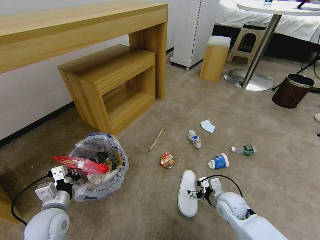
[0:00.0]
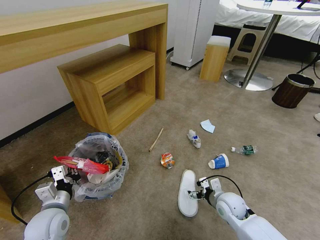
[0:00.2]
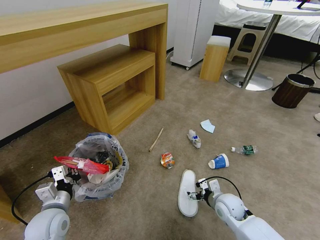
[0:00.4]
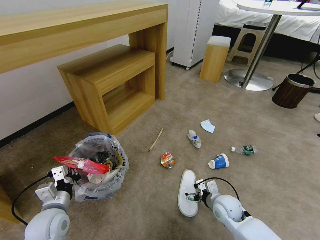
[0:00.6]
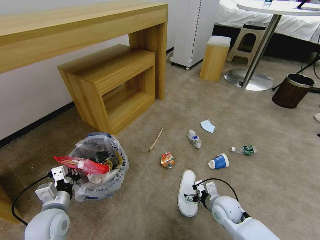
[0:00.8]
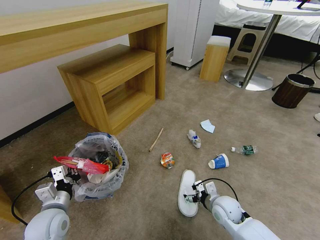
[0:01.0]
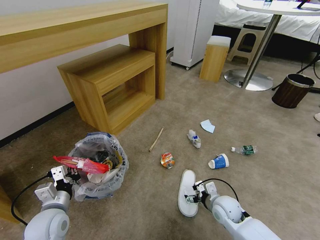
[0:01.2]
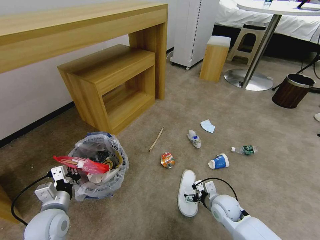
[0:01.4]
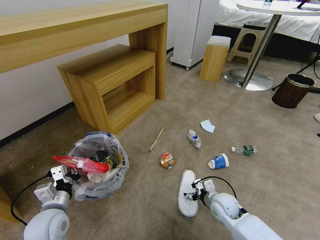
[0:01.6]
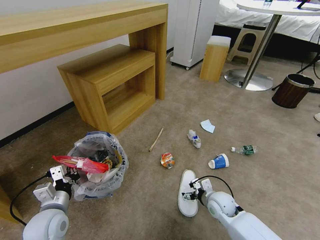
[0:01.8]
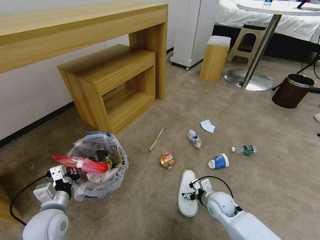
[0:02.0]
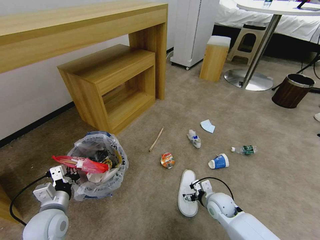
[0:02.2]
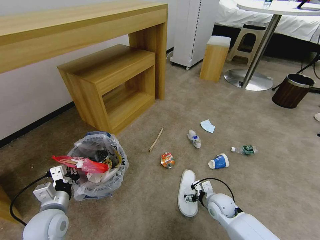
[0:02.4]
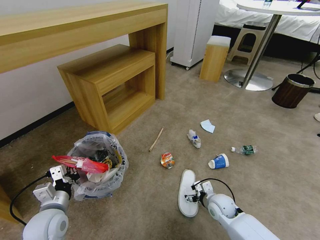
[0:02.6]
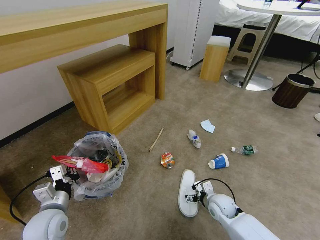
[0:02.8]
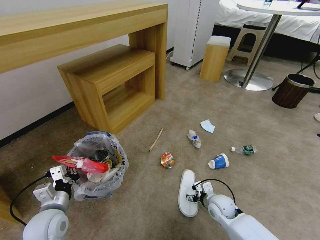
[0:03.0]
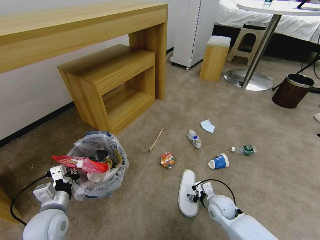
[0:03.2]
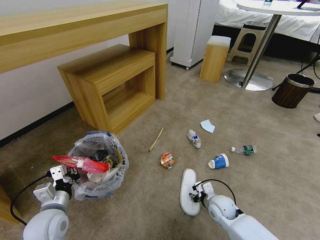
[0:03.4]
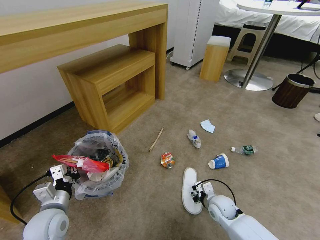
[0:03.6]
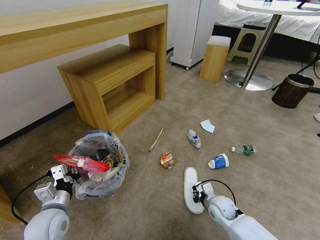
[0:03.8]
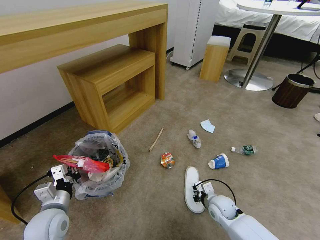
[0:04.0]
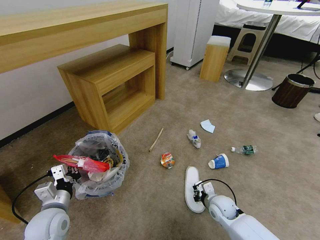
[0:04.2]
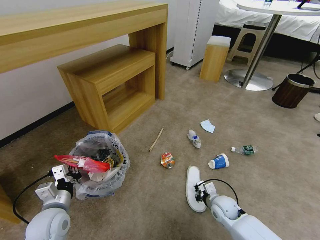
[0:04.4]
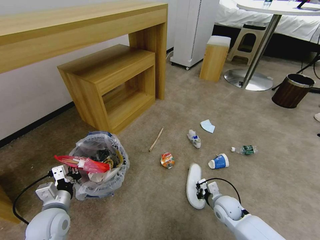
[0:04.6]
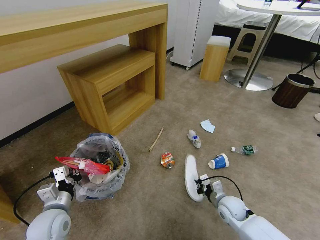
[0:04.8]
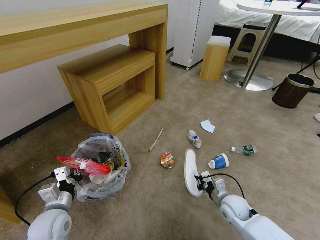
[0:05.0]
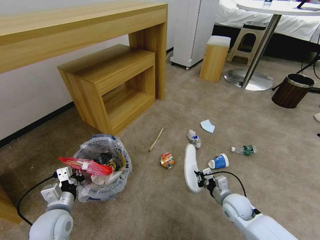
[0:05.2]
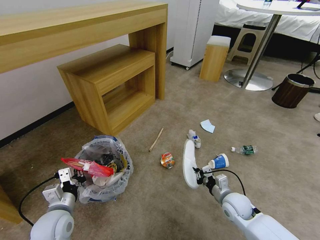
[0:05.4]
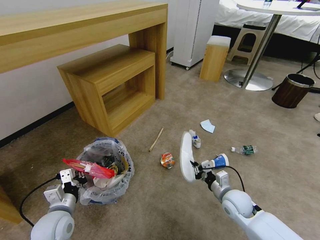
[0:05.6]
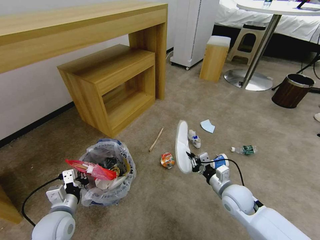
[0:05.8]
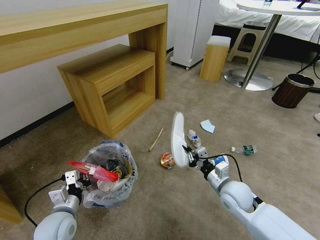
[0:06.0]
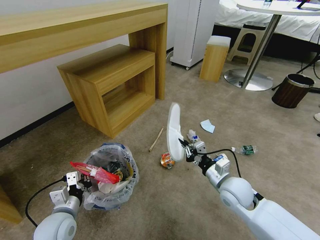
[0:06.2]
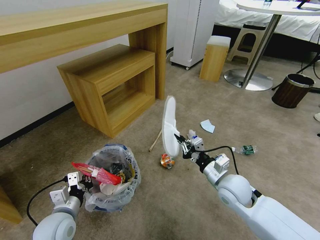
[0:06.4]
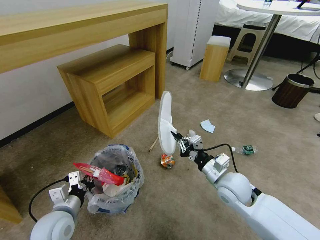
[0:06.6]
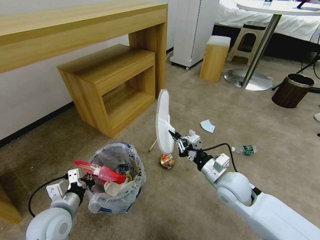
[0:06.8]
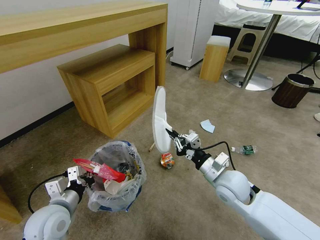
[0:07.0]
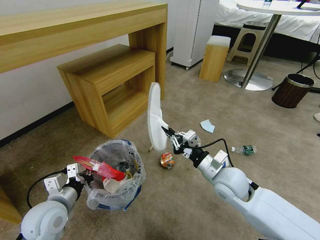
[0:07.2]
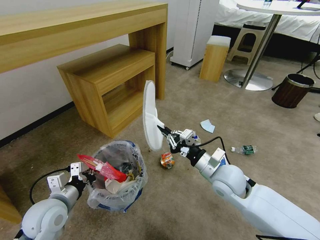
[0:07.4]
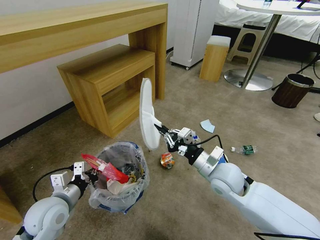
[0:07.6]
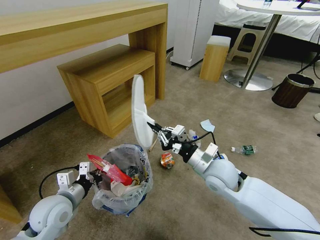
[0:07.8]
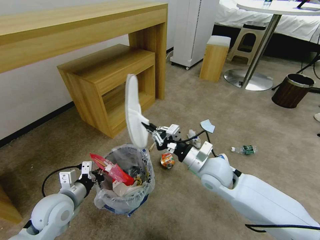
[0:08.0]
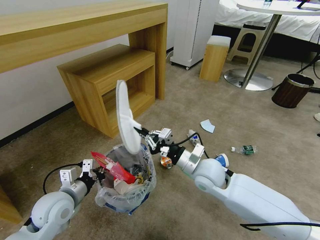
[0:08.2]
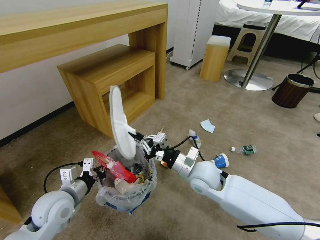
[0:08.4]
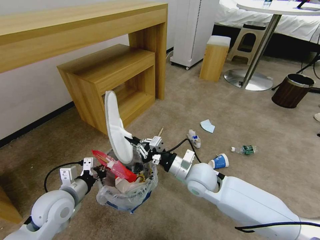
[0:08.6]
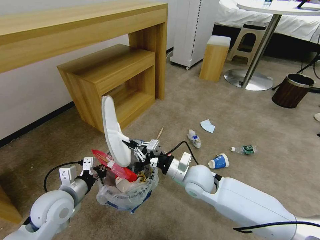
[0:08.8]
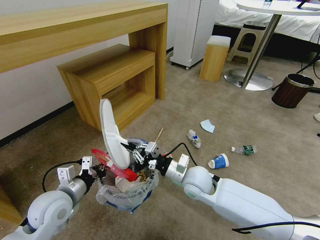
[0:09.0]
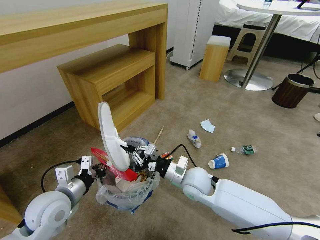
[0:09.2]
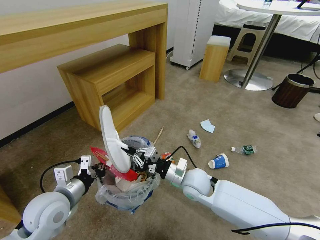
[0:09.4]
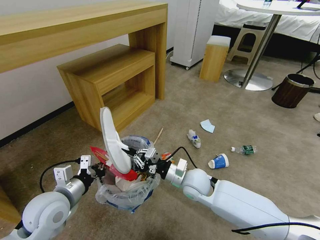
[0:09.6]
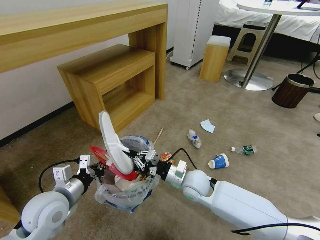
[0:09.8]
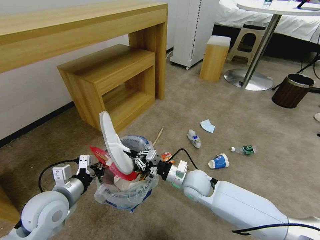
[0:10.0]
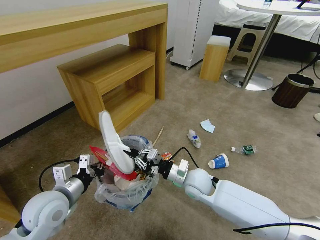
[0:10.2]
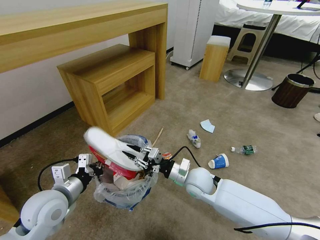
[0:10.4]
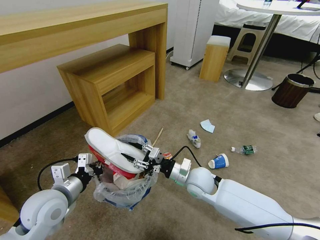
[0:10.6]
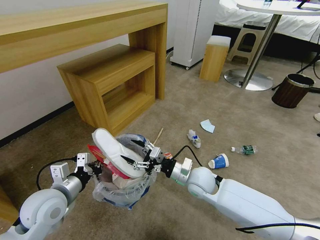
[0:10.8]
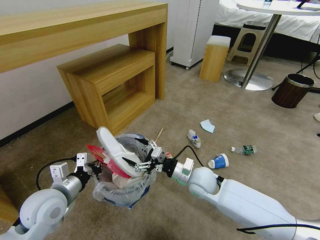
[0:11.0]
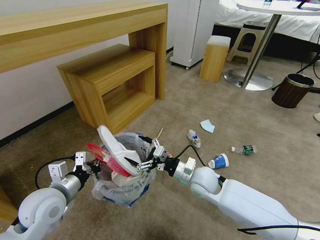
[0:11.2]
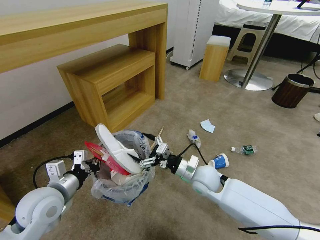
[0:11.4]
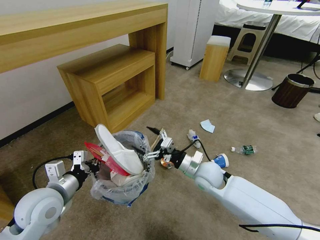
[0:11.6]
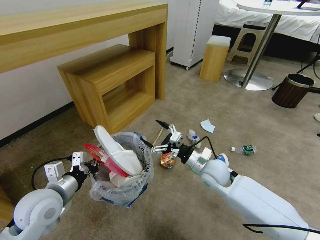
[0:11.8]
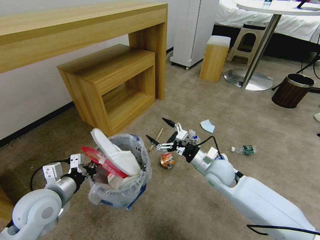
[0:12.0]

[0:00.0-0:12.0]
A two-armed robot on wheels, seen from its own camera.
Task of the whole recording: Pick up the trash bin and place the garbage on the floor into it.
0:00.0 to 0:03.0: There are only small adjustments of the grippers.
0:03.0 to 0:04.4: The right gripper closes up.
0:04.4 to 0:06.0: The right gripper moves upward, roughly 10 cm.
0:06.0 to 0:07.6: The left gripper shifts some 5 cm upward; the right gripper travels upward and to the left by roughly 10 cm.
0:07.6 to 0:09.0: The right gripper moves to the left, approximately 10 cm.
0:09.0 to 0:10.4: The grippers make only small movements.
0:10.4 to 0:12.0: The right gripper is displaced to the right by roughly 5 cm, and opens up.

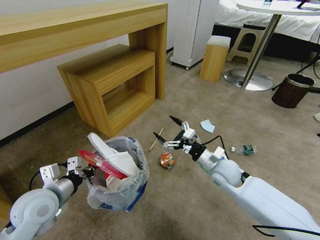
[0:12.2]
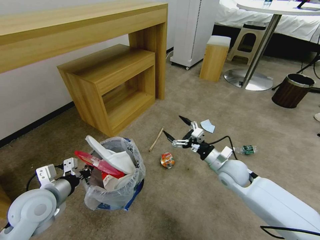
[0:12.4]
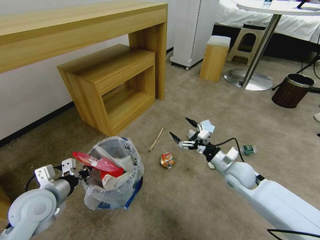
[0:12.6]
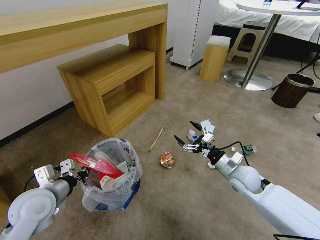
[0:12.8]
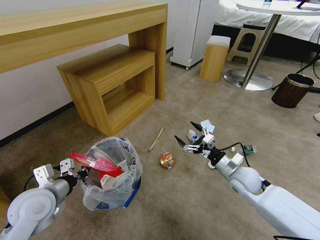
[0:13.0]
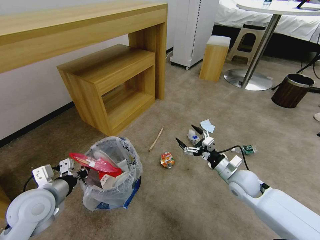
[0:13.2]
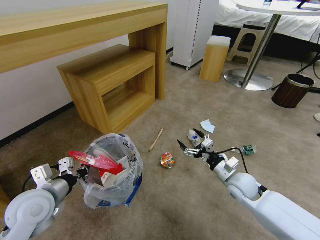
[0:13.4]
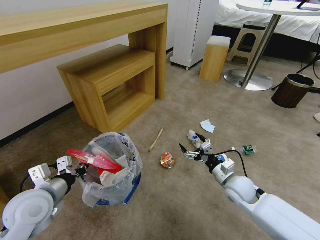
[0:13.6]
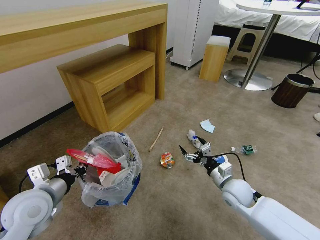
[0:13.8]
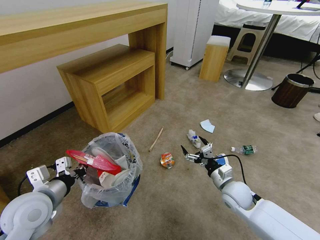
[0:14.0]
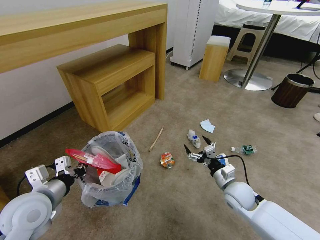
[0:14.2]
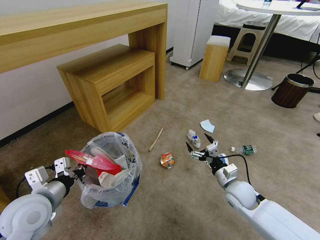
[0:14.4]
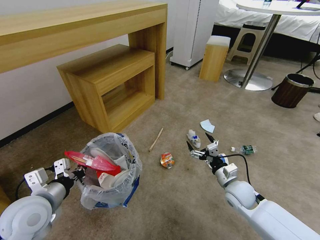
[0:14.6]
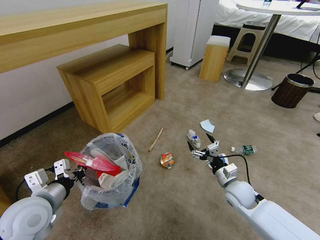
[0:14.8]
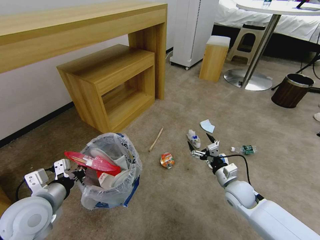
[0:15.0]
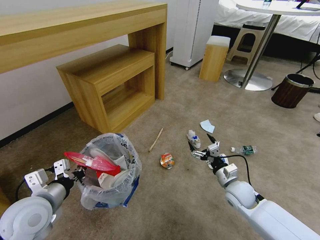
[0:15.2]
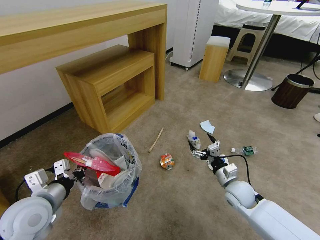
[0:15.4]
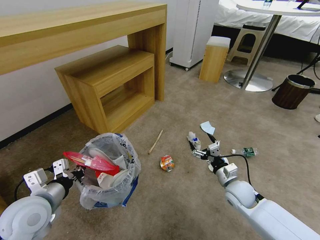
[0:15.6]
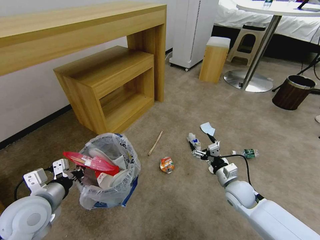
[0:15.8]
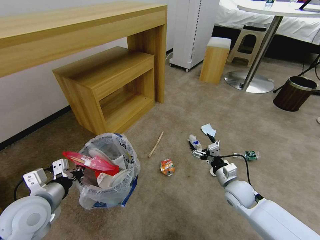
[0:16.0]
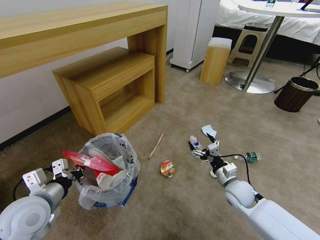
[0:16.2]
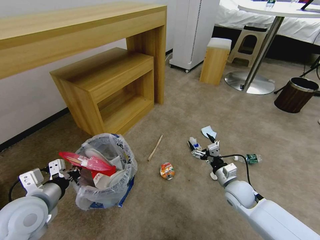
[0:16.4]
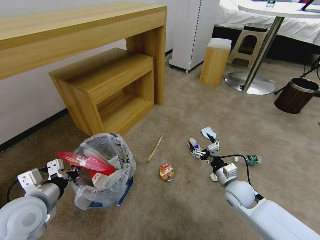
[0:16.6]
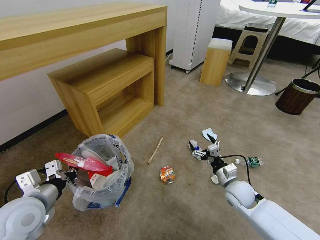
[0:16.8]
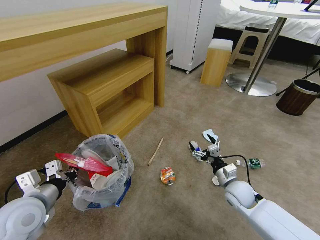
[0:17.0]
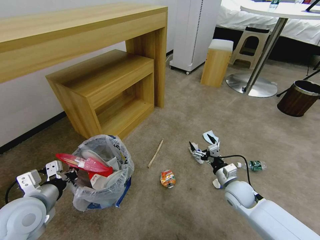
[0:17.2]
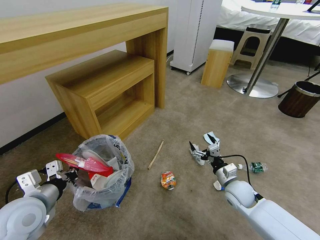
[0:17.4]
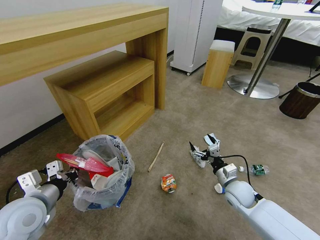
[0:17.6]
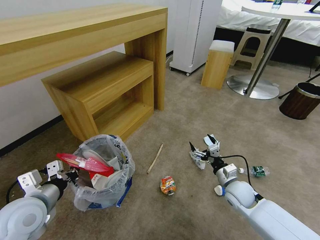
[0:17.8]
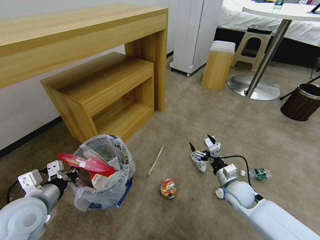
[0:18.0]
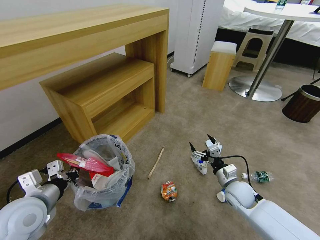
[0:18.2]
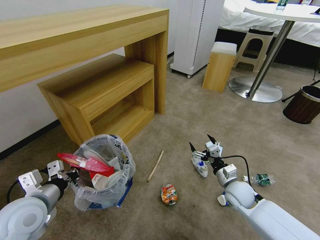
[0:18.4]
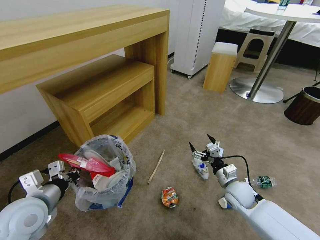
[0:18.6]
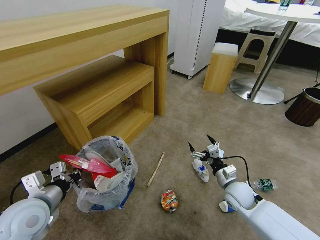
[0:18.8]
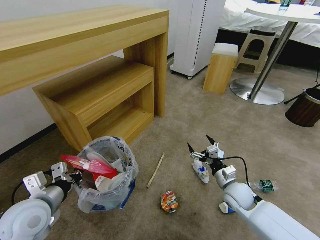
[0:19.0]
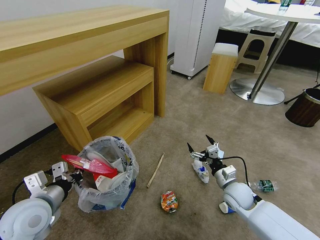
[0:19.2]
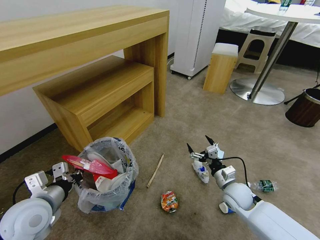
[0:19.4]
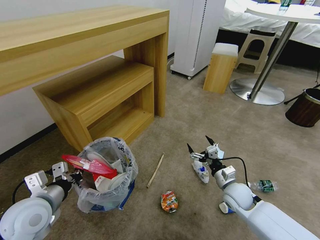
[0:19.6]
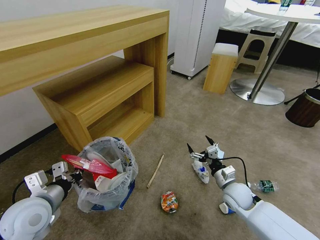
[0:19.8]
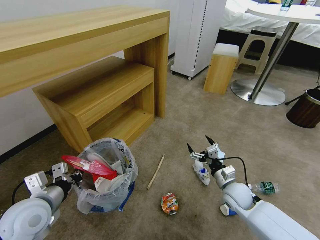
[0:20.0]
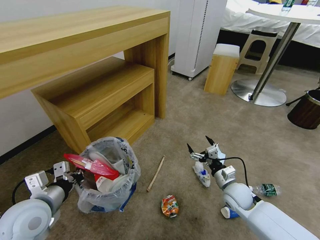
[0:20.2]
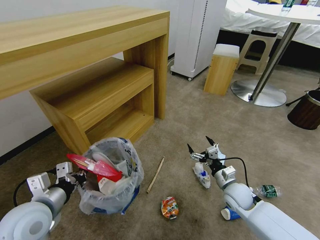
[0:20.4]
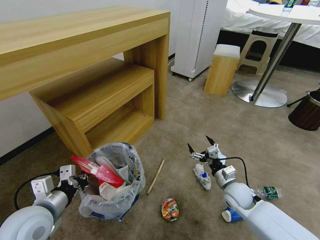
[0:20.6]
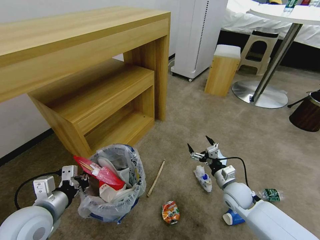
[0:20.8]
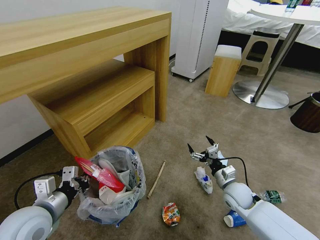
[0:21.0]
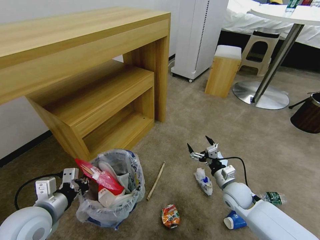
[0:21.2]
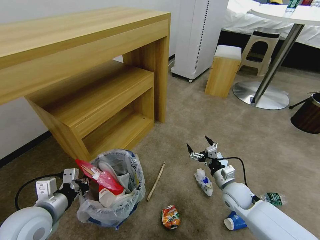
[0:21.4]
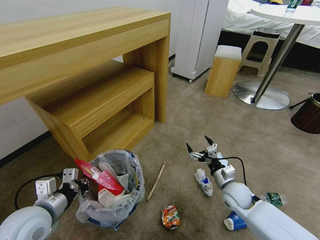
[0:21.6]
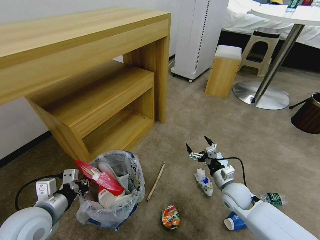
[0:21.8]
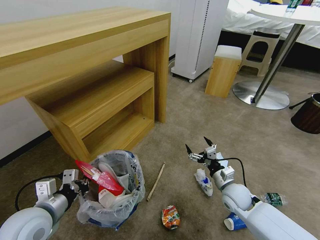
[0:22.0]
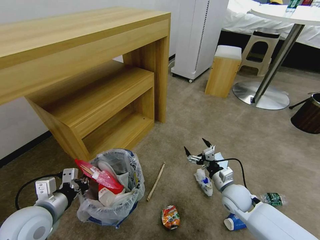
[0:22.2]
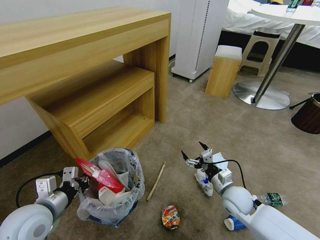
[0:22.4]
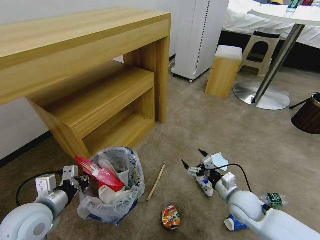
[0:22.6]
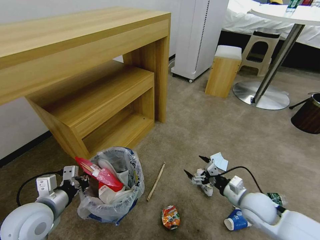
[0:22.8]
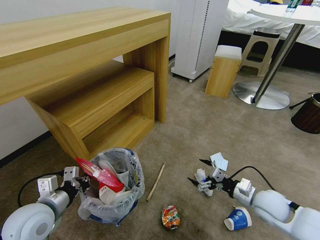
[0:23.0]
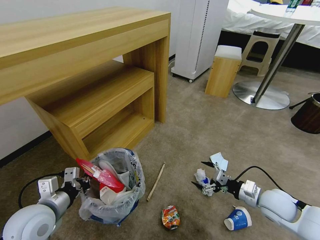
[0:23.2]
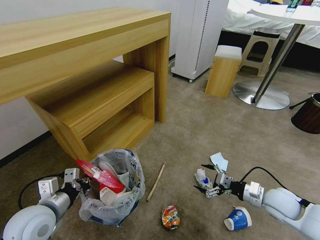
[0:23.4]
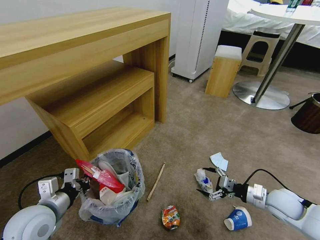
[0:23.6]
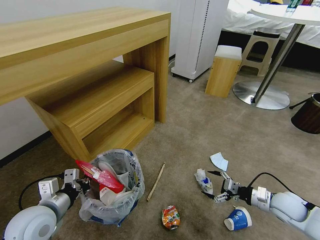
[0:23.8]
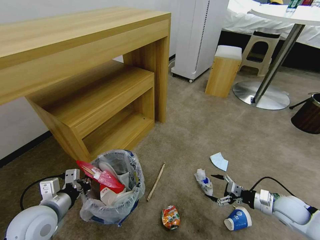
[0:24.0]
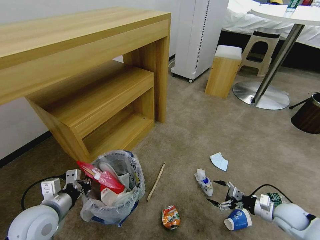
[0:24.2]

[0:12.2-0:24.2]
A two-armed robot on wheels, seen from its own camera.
Task of the whole recording: Pick up the trash bin and place the garbage on the floor into it.
0:12.2 to 0:13.8: The right gripper moves downward, about 5 cm.
0:13.8 to 0:15.2: The grippers move only a little.
0:15.2 to 0:16.6: Both grippers stay about where they are.
0:18.2 to 0:19.8: The two grippers keep their place.
0:21.2 to 0:22.6: The grippers move only a little.
0:22.6 to 0:24.2: The right gripper travels to the right by approximately 20 cm.
